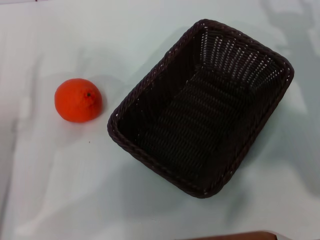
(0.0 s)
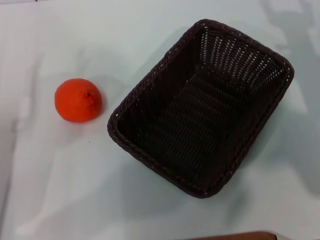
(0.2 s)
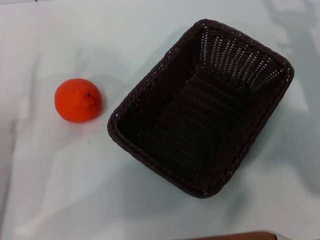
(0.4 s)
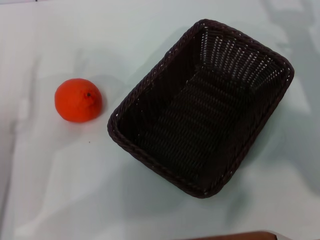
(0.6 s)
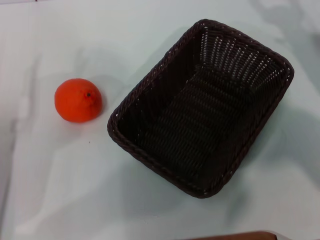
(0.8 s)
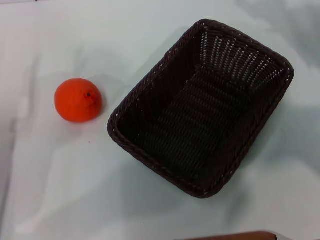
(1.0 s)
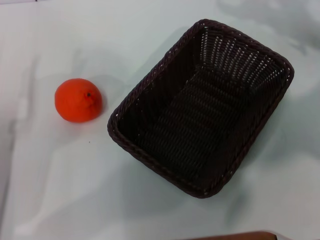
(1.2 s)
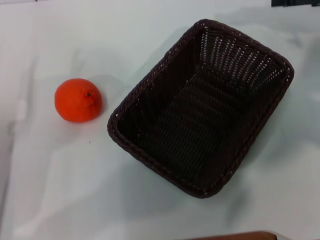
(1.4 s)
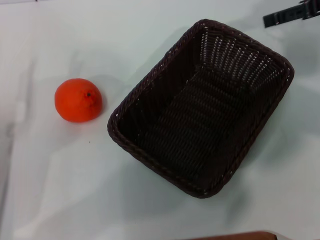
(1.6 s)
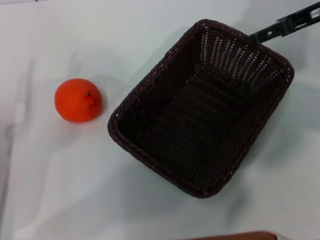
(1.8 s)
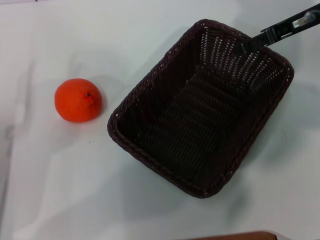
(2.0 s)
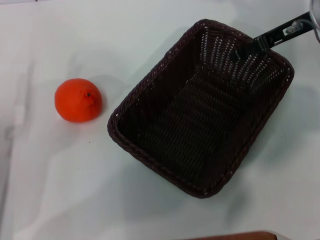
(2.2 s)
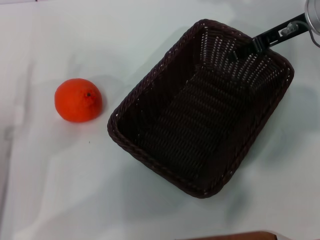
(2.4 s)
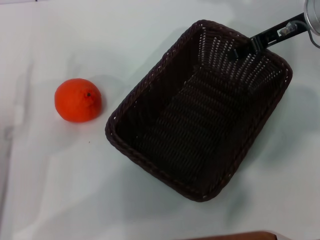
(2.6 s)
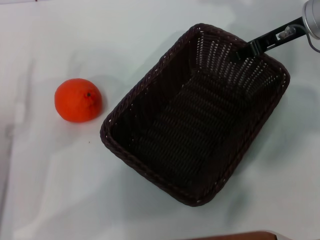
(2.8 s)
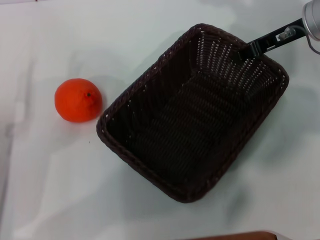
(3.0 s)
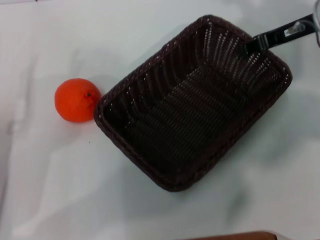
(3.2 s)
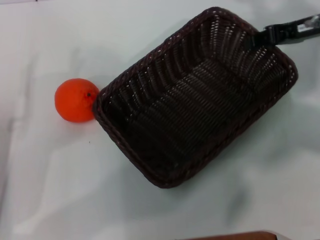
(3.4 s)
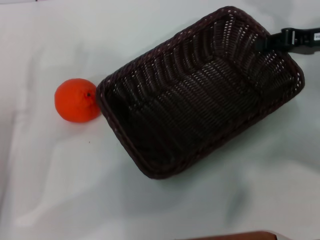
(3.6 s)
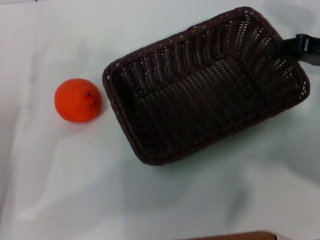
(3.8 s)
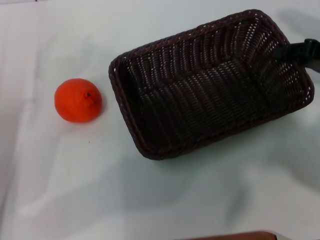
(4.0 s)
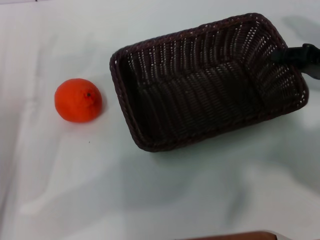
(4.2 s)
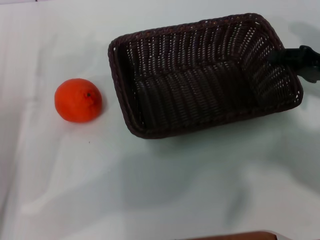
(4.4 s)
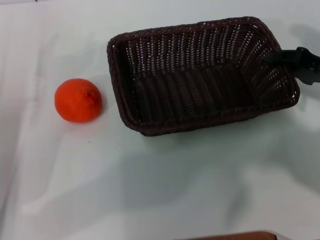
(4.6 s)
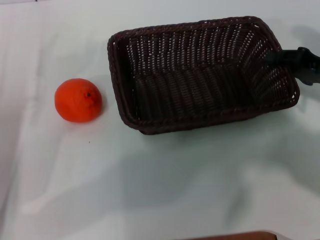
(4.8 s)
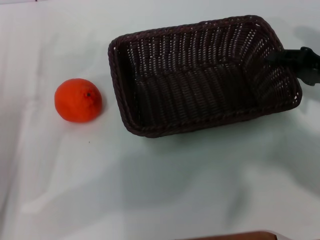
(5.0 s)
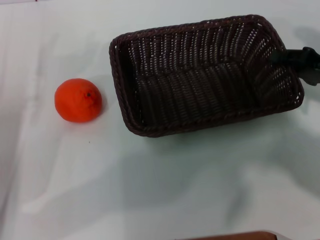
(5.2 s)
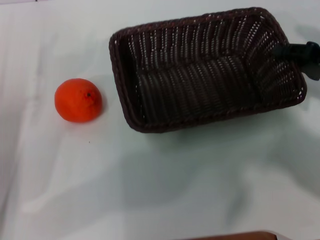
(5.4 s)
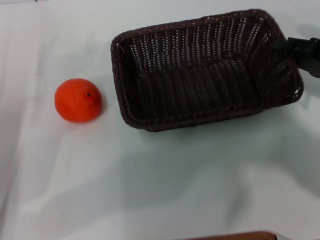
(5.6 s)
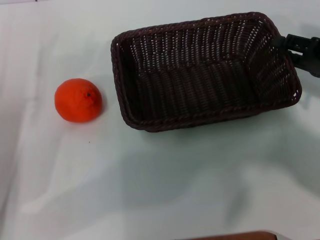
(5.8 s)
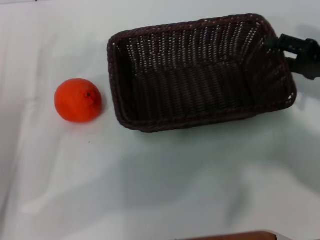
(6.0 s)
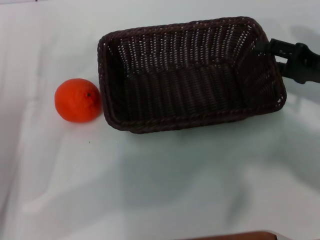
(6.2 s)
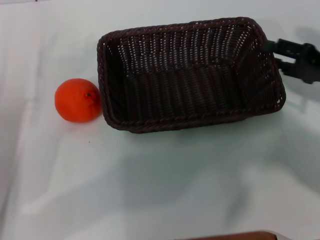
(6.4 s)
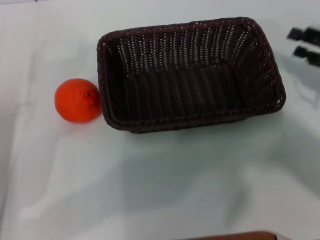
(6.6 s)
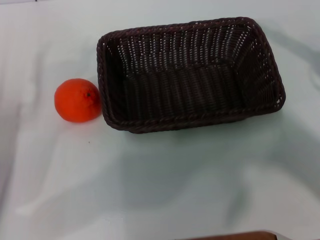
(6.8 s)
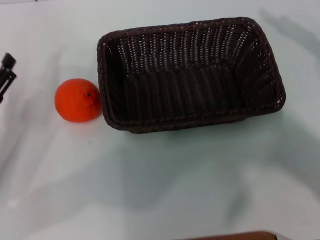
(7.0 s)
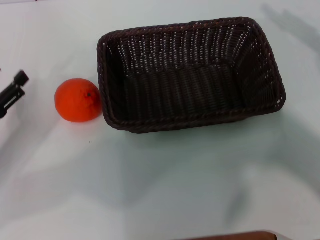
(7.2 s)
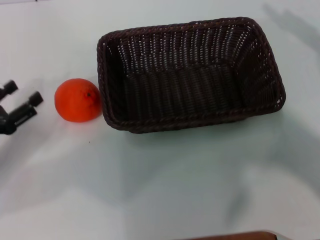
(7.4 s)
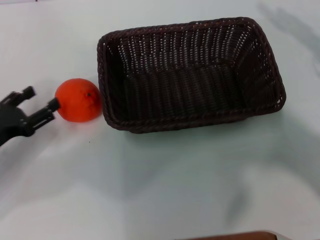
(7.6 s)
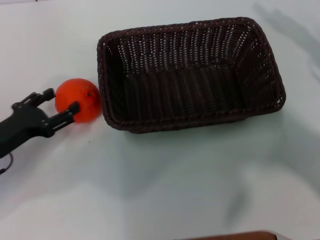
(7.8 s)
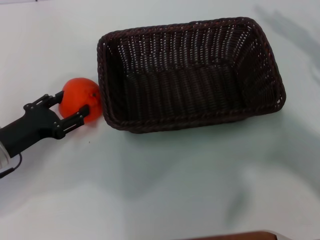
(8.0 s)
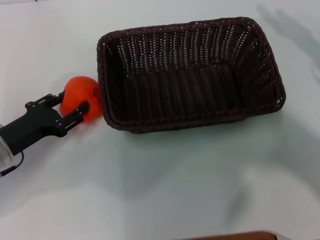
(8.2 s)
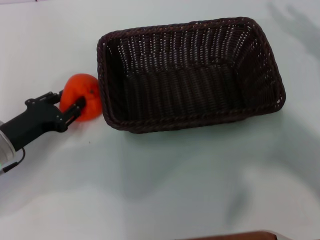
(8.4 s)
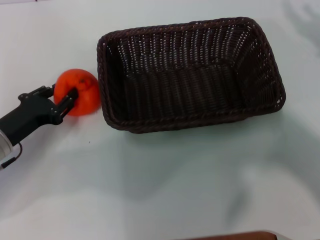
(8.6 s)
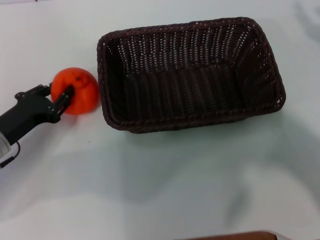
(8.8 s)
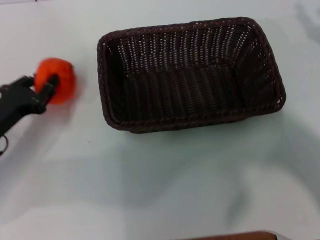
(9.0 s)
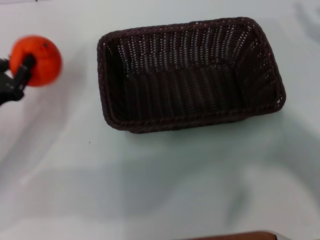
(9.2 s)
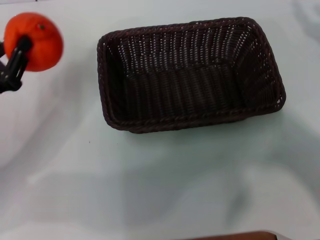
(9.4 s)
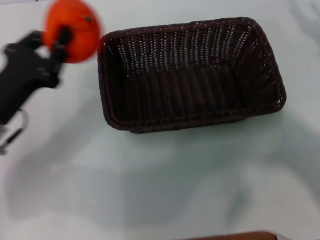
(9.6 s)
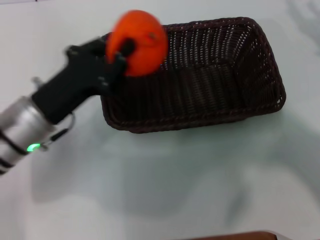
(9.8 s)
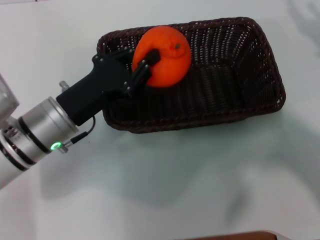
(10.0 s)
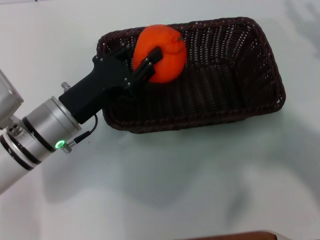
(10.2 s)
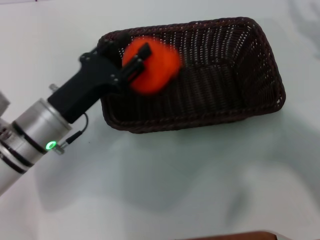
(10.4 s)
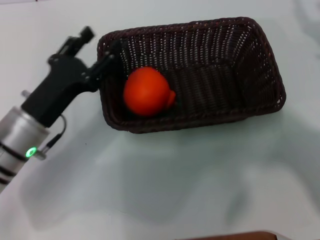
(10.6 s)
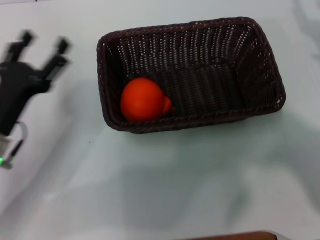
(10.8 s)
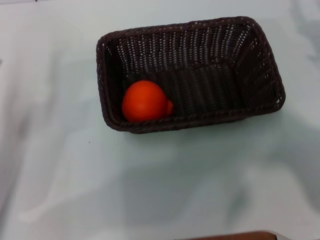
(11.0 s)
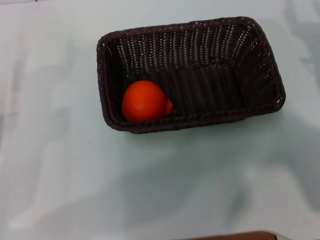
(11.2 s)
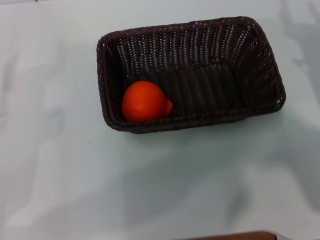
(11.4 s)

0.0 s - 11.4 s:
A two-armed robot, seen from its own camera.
Task of the whole recording: the right gripper pick up the black basket and place it horizontally in the middle of the table, the left gripper pick up the orange and place it into the black basket.
Step, 0.0 s - 3.6 s: Pick up the dark basket with the right gripper.
Step, 3.8 s - 6.4 s: Place the dark basket in the center of view with the right gripper.
Step, 6.6 s - 8.8 s: Pick up the orange with the left gripper.
Step, 9.2 s - 10.4 s: Place the orange into the dark basket with the left gripper.
0.0 s - 1.4 s: The right gripper moves upward and forward, approximately 15 cm.
1.4 s - 2.8 s: The right gripper shifts about 10 cm to the left, and closes up.
2.8 s - 4.2 s: The right gripper moves backward, to the right and downward, roughly 15 cm, and closes its fingers.
4.2 s - 5.6 s: There are only small adjustments of the grippers.
5.6 s - 7.2 s: The right gripper goes roughly 10 cm to the right and upward, and opens up.
7.2 s - 8.6 s: The left gripper is displaced to the right by about 5 cm, and closes.
8.6 s - 10.0 s: The left gripper travels to the right and upward by roughly 10 cm, and closes.
10.0 s - 11.4 s: The right gripper moves to the left, about 5 cm; the left gripper moves to the left, roughly 15 cm, and opens its fingers.
